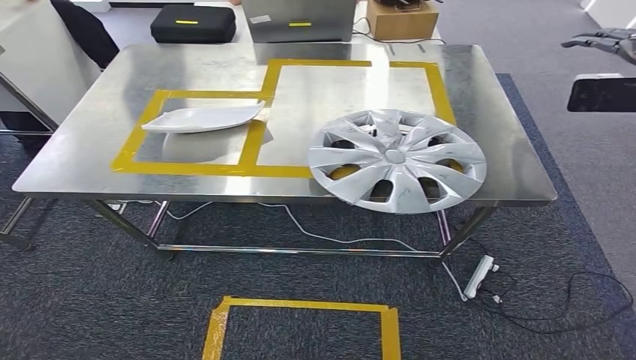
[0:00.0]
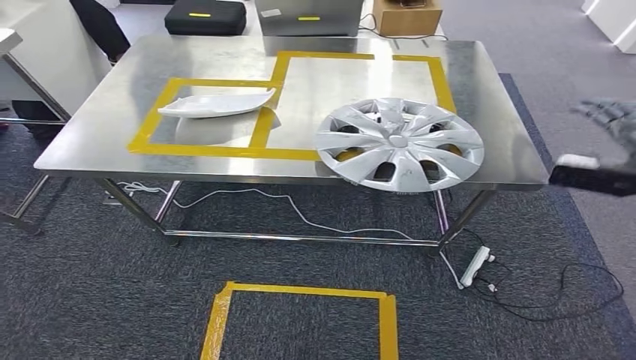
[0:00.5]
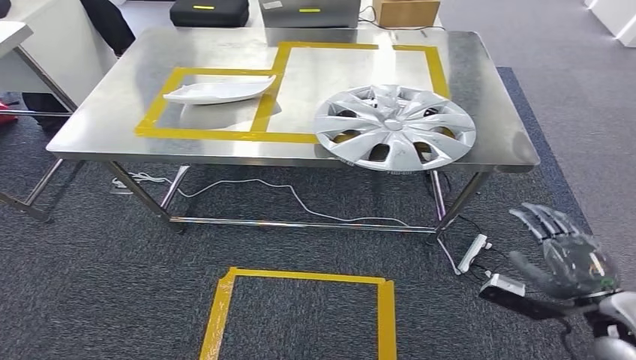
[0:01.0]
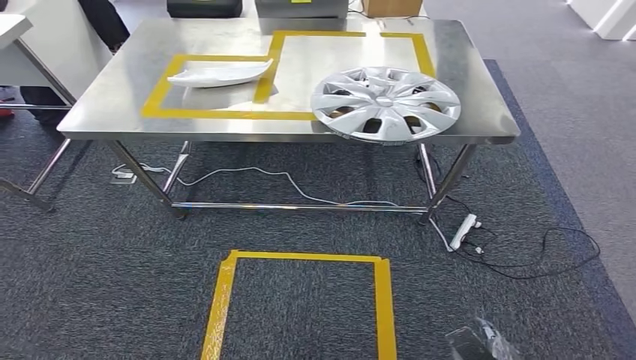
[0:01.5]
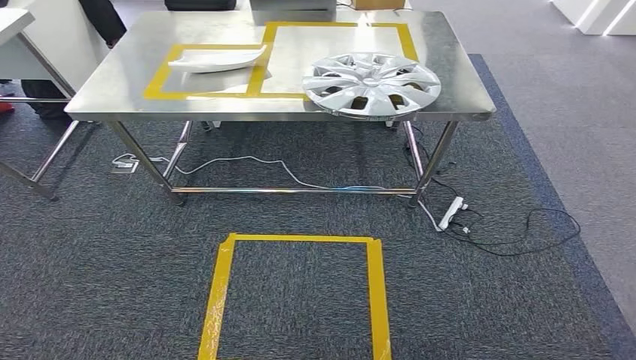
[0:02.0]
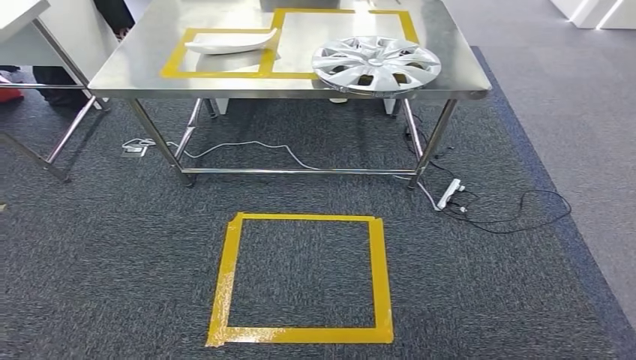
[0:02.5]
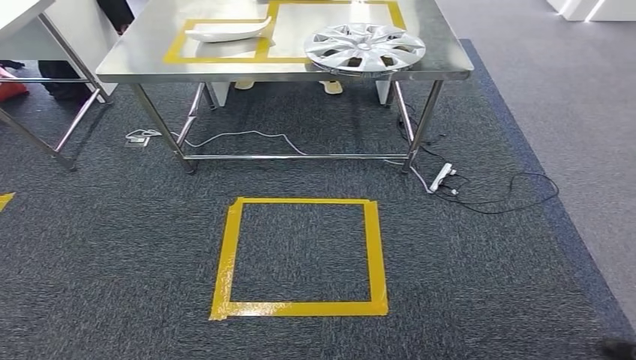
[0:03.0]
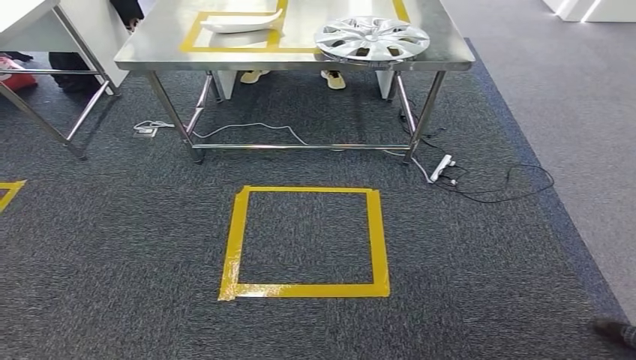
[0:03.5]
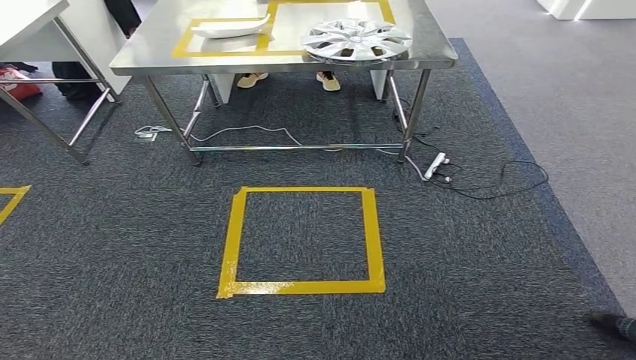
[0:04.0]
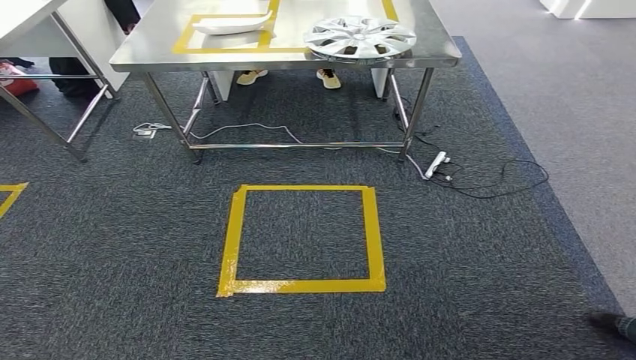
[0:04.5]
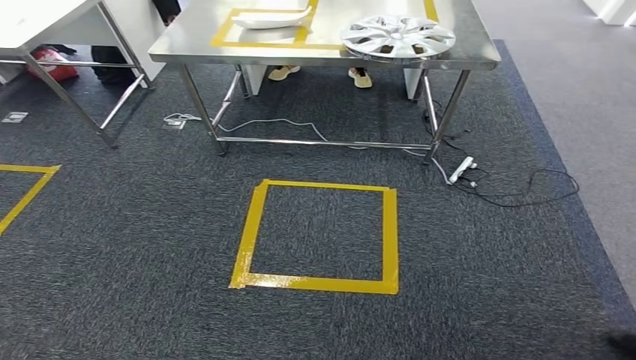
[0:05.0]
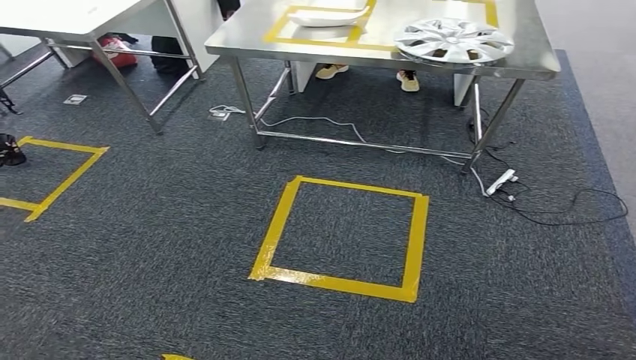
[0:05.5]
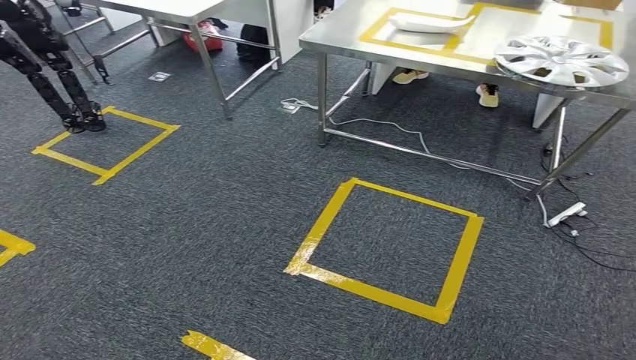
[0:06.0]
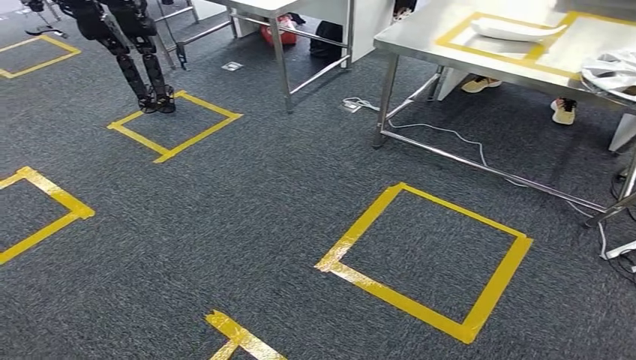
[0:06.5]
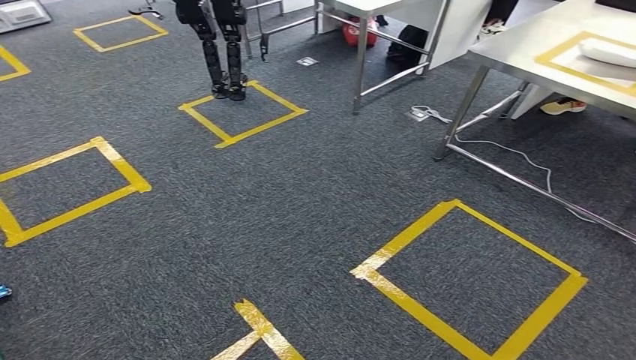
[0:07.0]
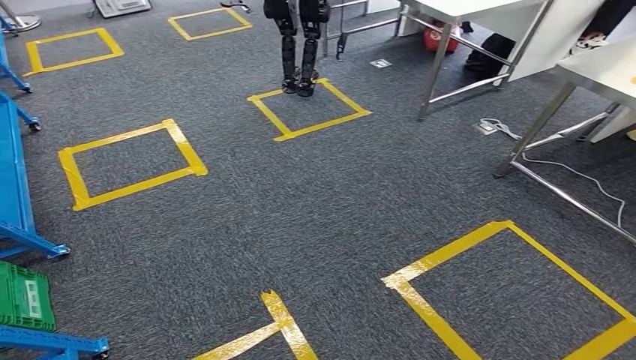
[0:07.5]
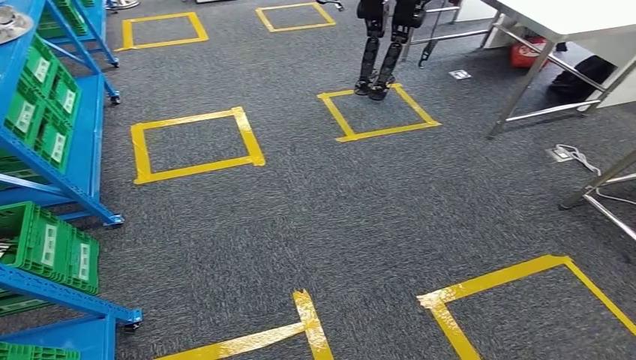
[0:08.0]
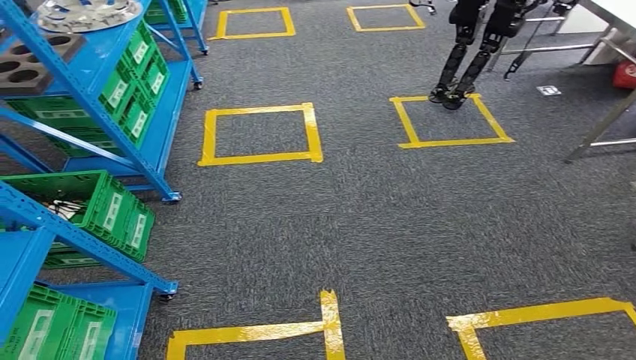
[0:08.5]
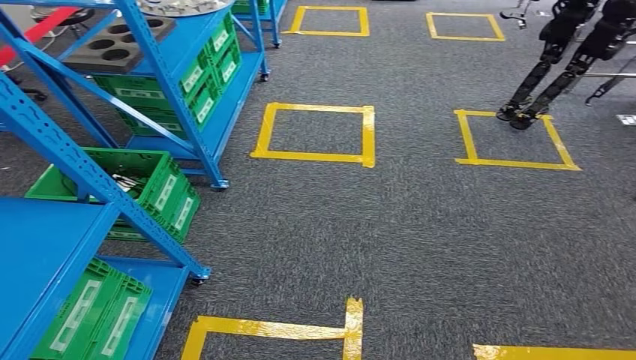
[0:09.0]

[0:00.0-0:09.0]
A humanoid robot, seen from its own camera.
Step, 0:00.0 to 0:03.5: Insert the small component into the corresponding slot on the workbench.

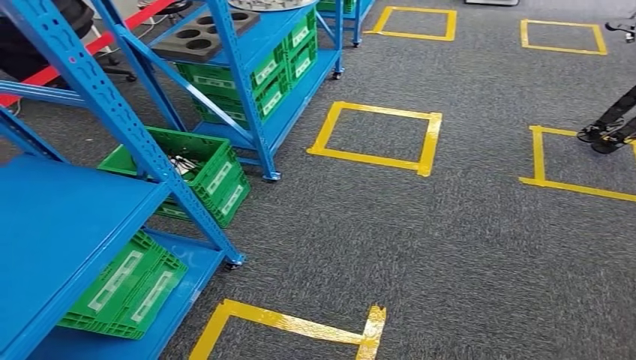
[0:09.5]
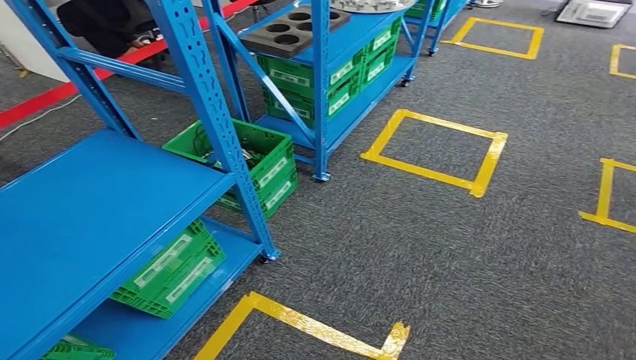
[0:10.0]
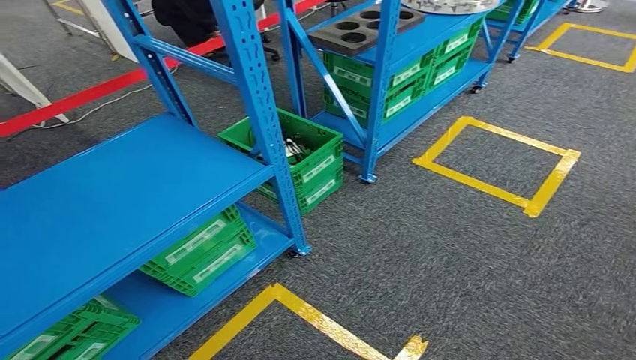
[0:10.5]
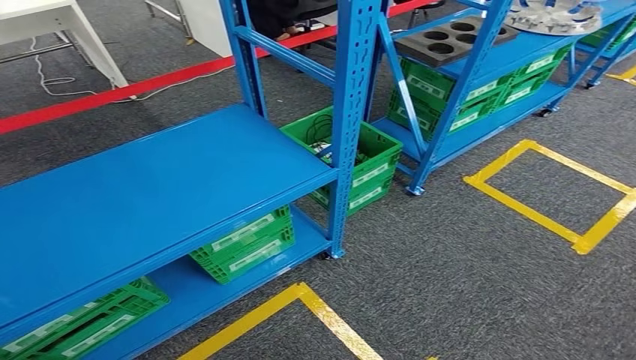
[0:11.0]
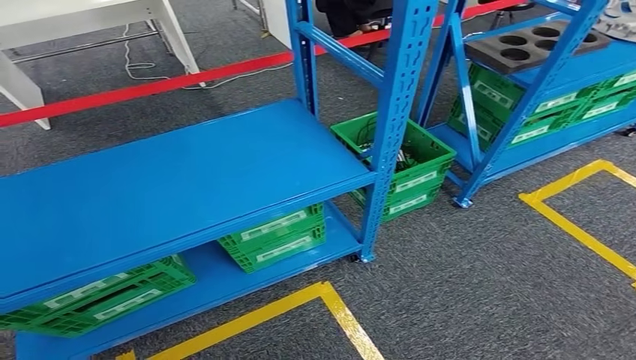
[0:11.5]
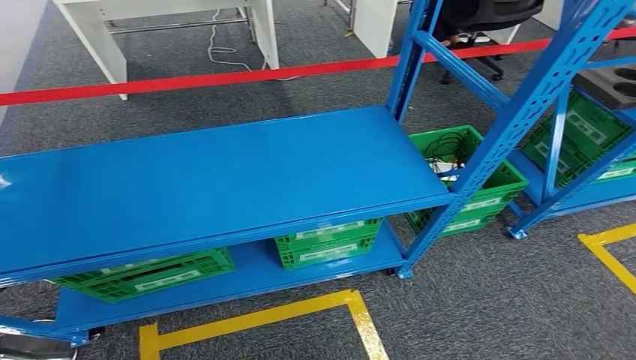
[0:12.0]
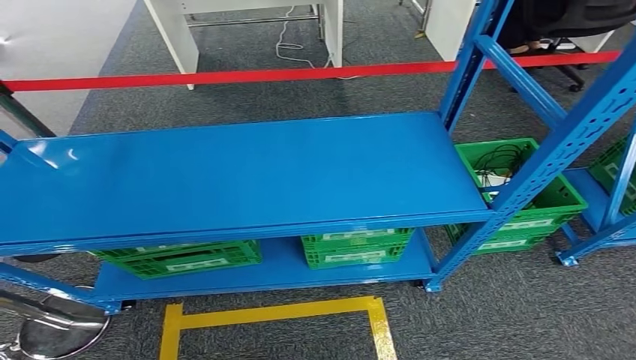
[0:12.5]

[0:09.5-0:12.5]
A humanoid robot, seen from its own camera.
Step, 0:09.5 to 0:12.5: Return to the initial position at the workbench.
